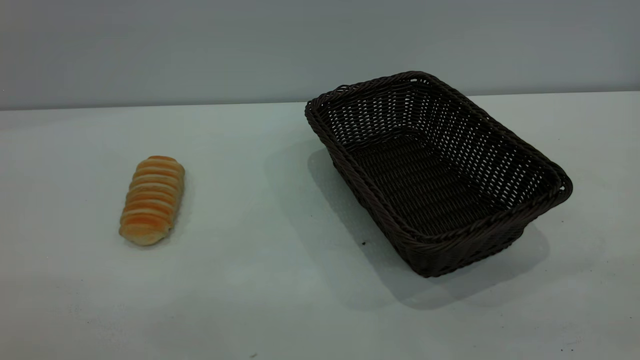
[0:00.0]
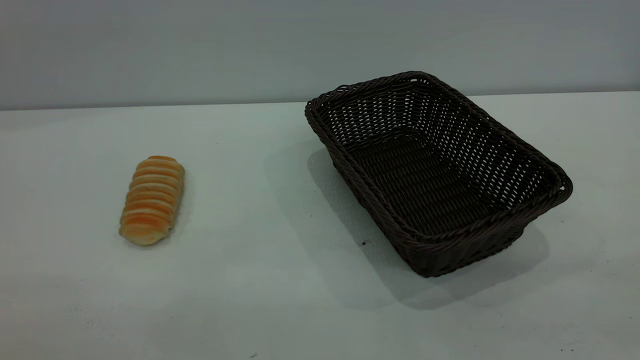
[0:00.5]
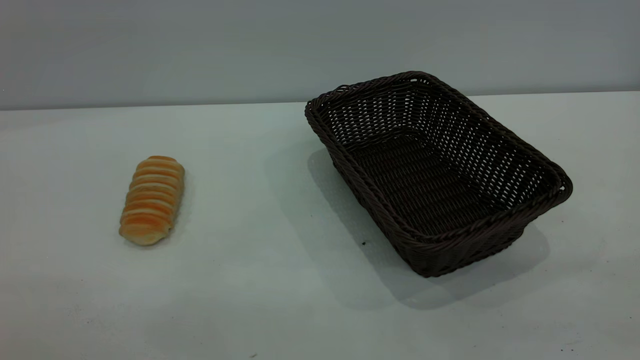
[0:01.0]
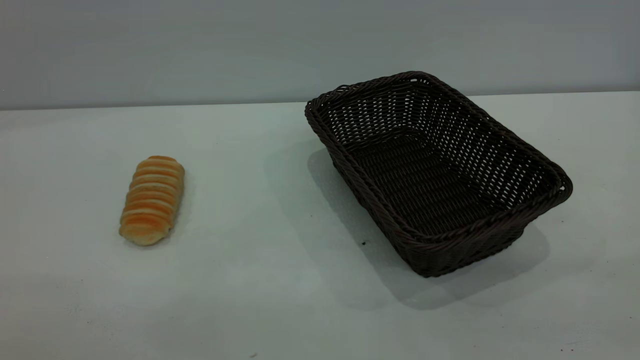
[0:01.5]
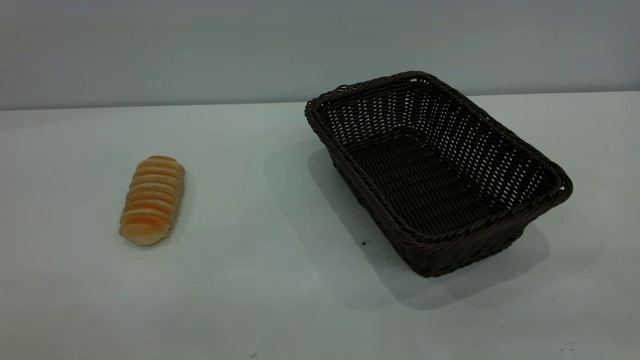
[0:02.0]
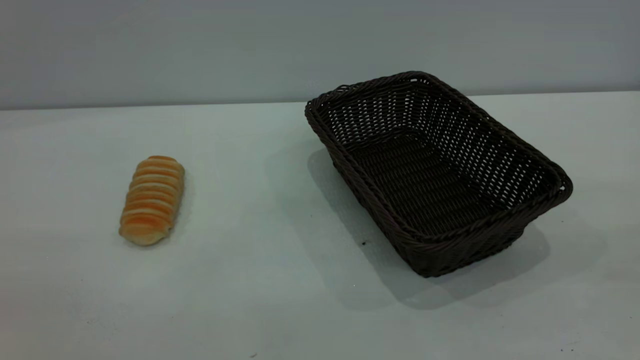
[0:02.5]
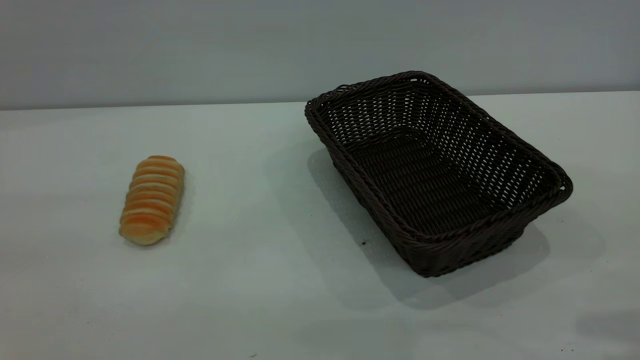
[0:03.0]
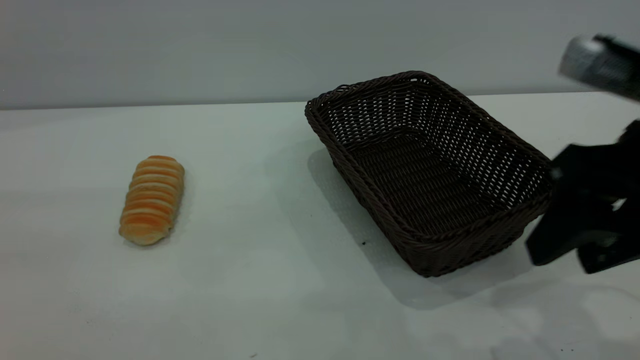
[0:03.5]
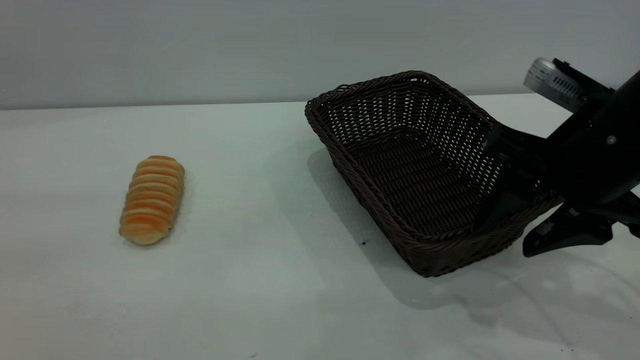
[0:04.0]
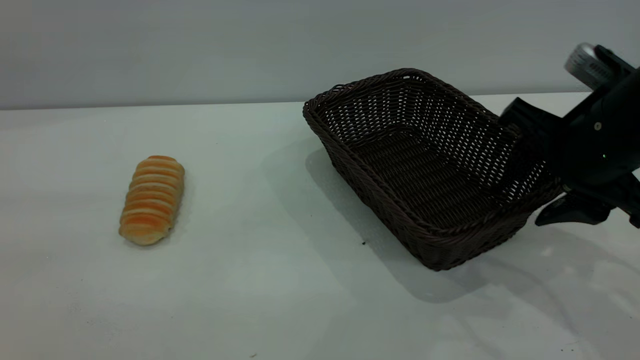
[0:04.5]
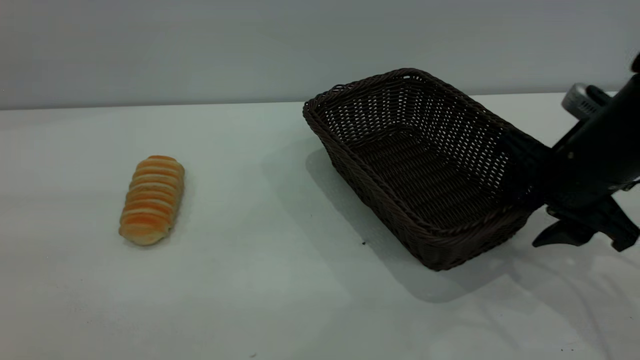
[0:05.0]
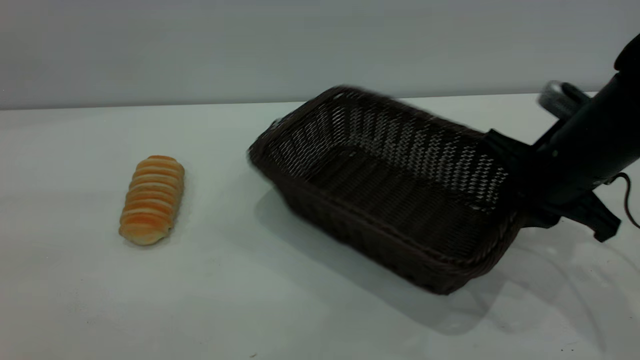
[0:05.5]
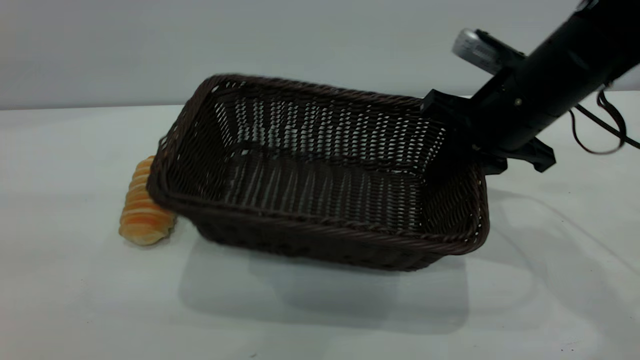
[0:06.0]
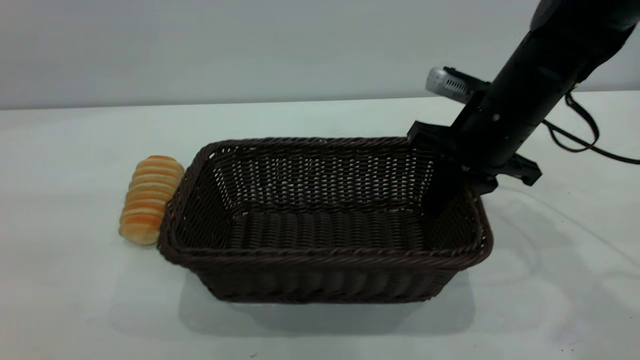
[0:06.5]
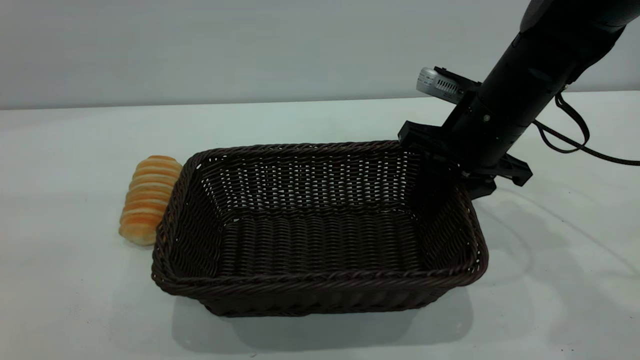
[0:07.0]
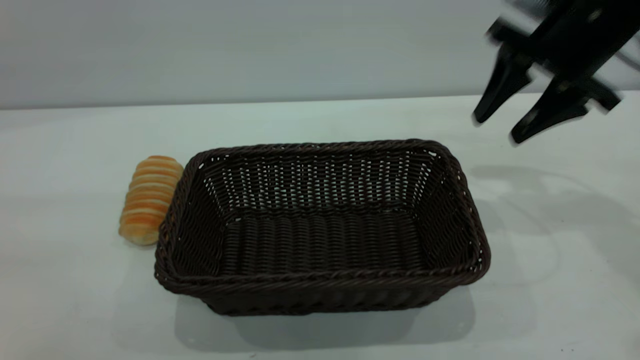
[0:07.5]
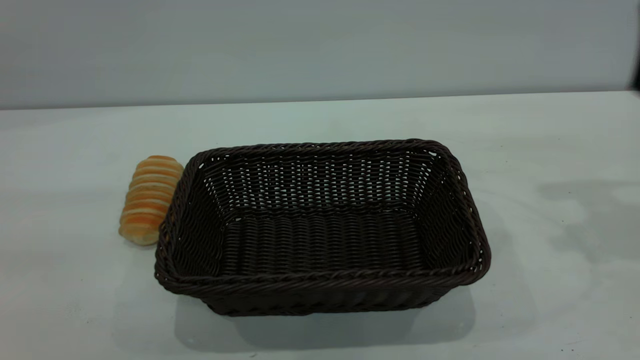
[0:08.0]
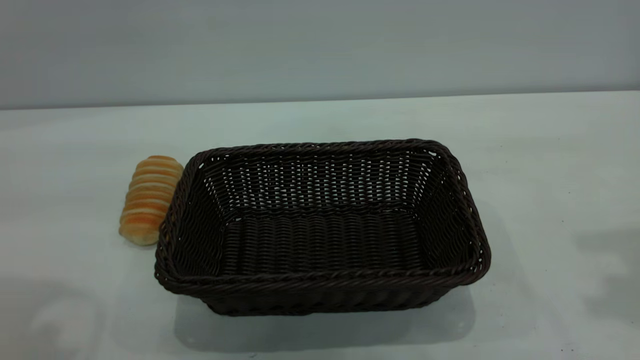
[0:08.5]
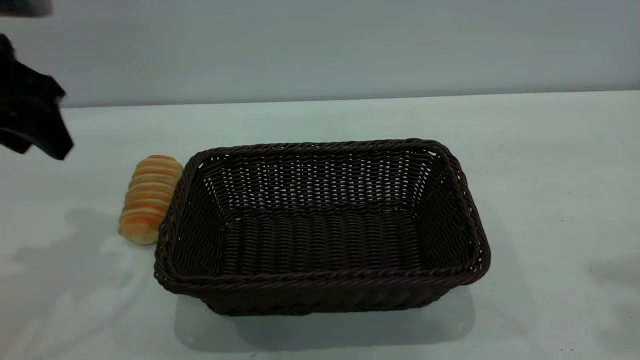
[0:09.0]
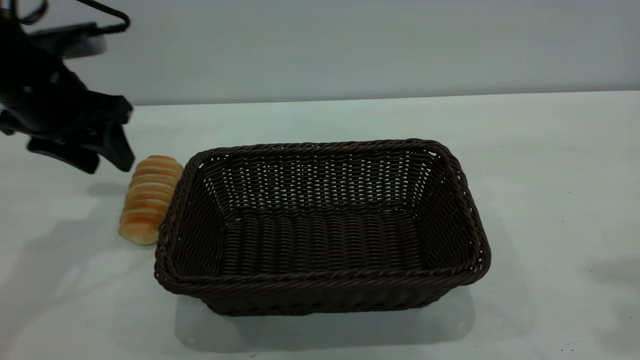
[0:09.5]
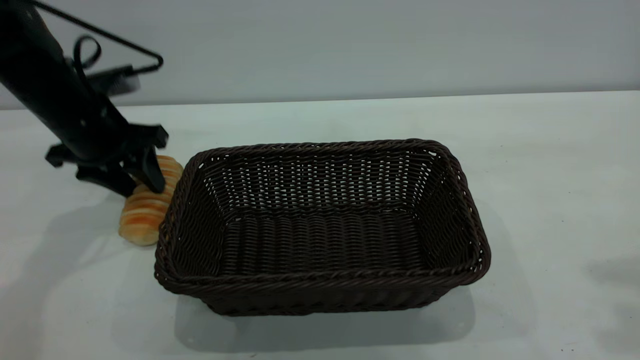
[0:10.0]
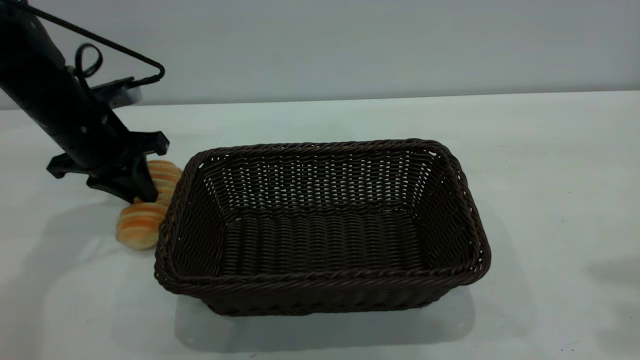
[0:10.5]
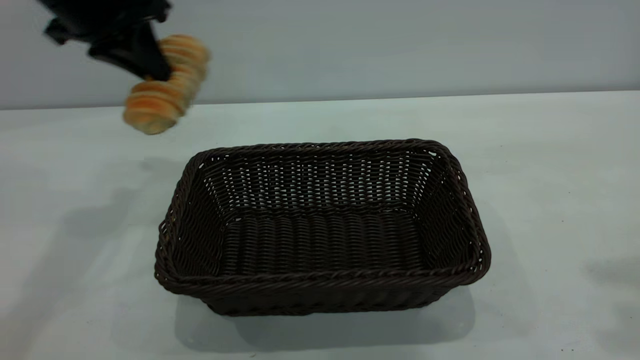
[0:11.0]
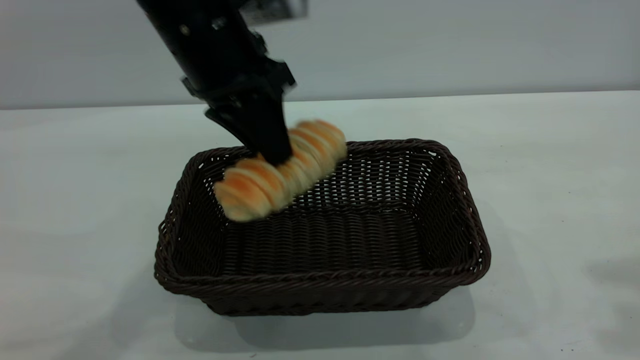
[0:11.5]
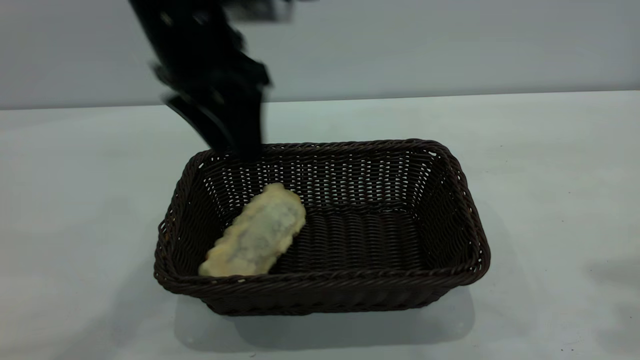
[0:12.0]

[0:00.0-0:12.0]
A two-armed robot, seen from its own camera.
Task of the whole recording: One hand grasps the black basket and places it in the middle of the table, while the other hand picks up the long bread and puts it into the black basket.
Step, 0:00.0 to 0:07.0: Move the basket to the center of view.
Step, 0:11.0 to 0:12.0: place the bread into the basket.
0:00.0 to 0:02.0: Both grippers stay about where they are.
0:02.0 to 0:04.0: The right gripper shifts some 30 cm forward and downward.
0:04.0 to 0:06.0: The right gripper moves forward, roughly 10 cm, and closes up.
0:06.0 to 0:08.0: The right gripper moves upward and to the right, about 20 cm, and opens up.
0:08.0 to 0:10.0: The right gripper travels backward and upward by some 20 cm; the left gripper is displaced forward and downward by approximately 40 cm.
0:10.0 to 0:12.0: The left gripper shifts some 20 cm to the right and upward, and closes, then reopens.

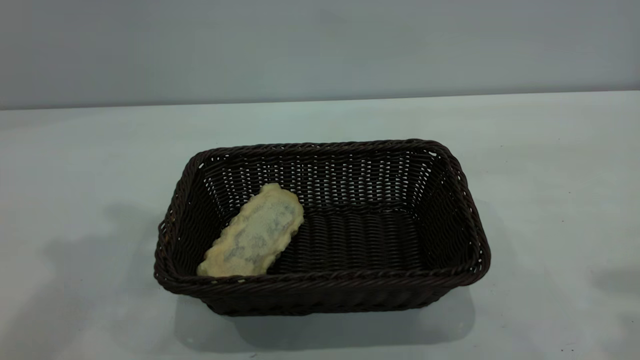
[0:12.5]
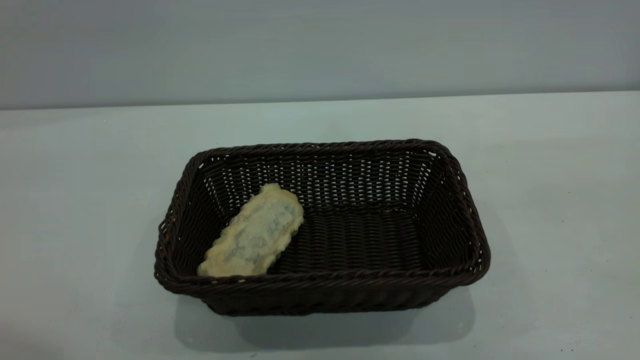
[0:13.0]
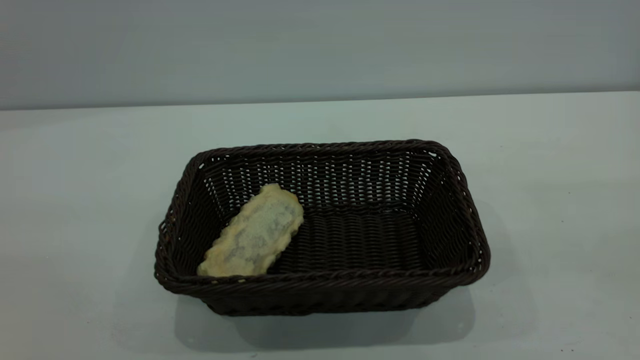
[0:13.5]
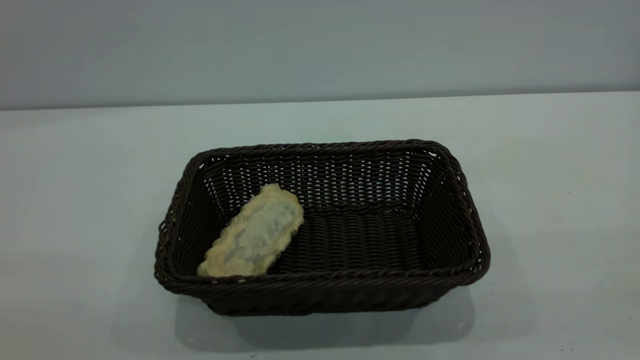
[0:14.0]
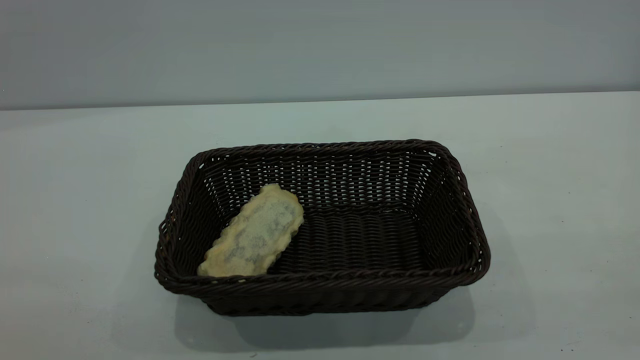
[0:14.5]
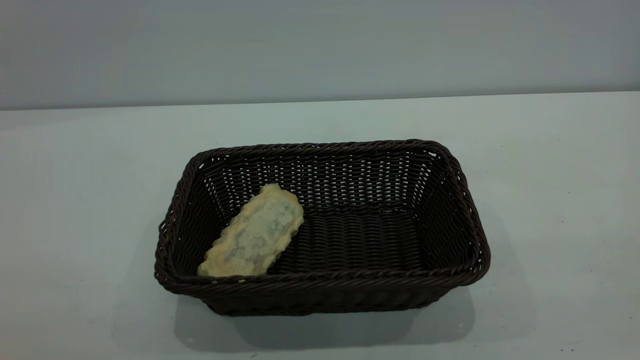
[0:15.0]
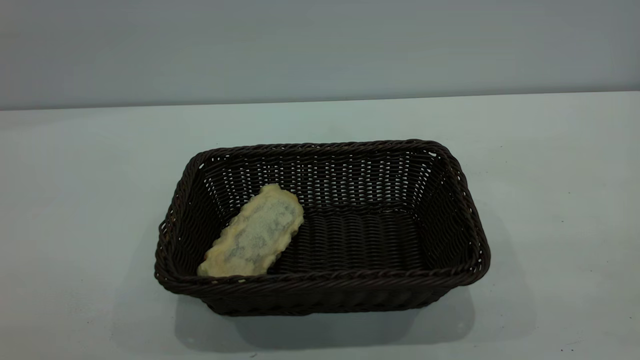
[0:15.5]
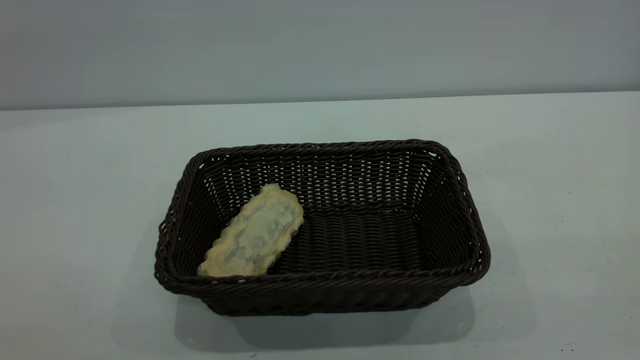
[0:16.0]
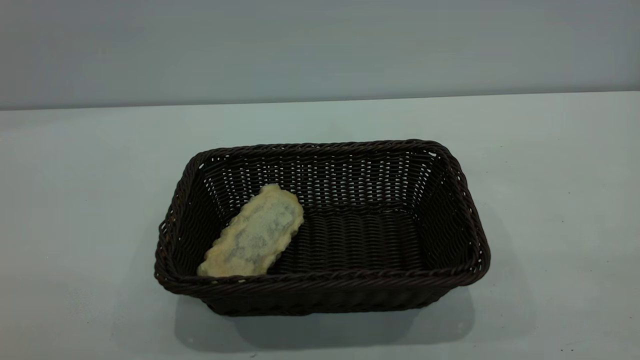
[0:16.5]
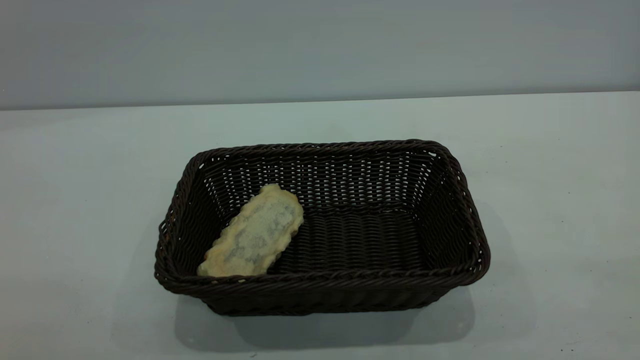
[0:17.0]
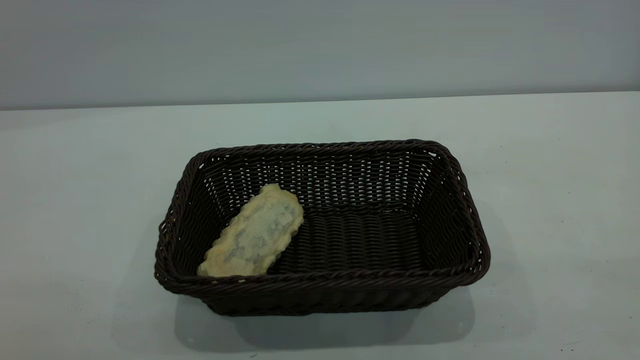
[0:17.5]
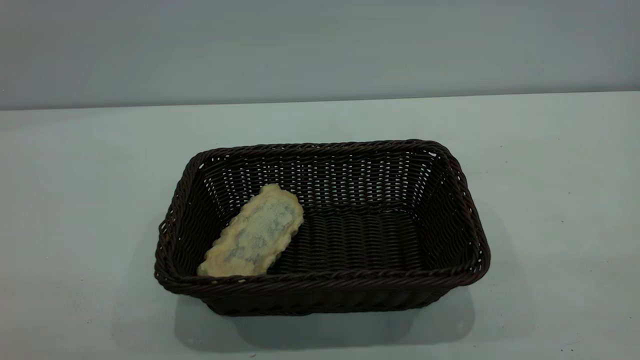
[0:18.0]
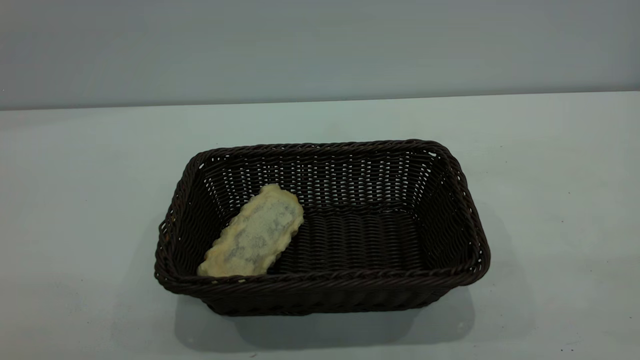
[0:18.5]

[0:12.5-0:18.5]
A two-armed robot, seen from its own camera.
Task of the whole recording: One hand grasps the black basket and places it in the middle of the table, while the other hand picks up the long bread and puts it into the black basket.
0:16.5 to 0:18.5: Both grippers stay about where they are.
